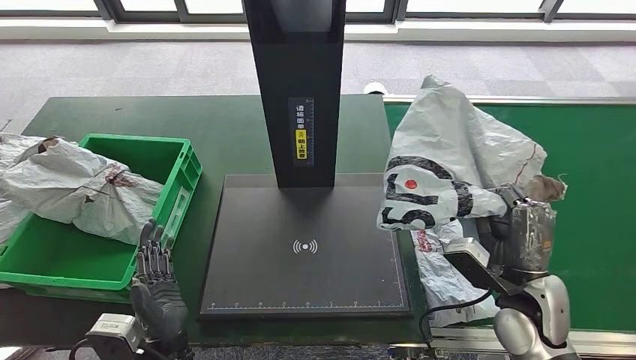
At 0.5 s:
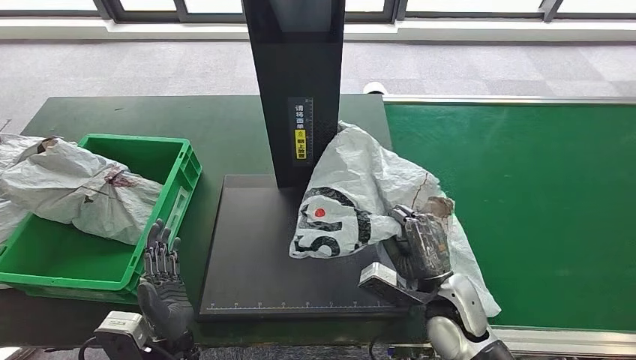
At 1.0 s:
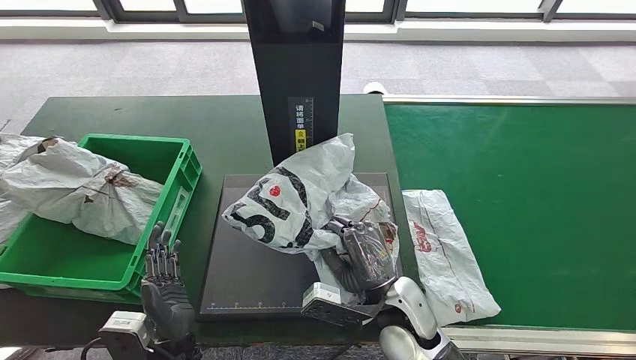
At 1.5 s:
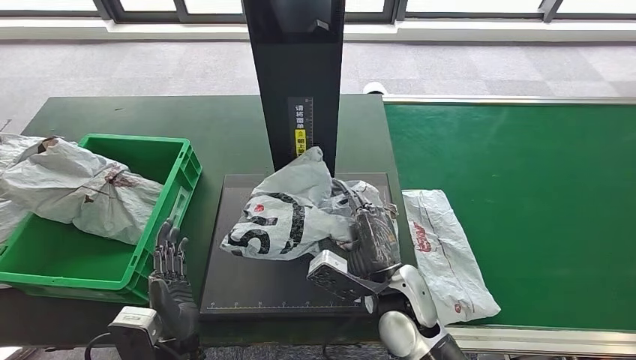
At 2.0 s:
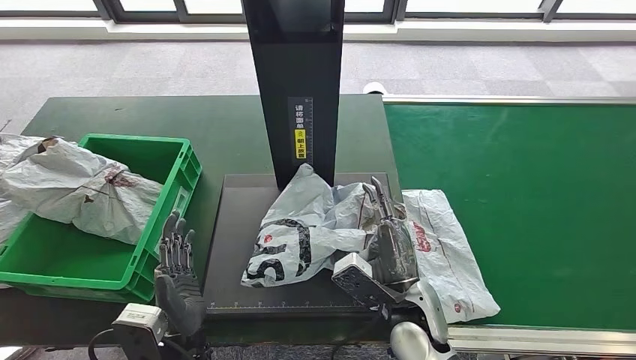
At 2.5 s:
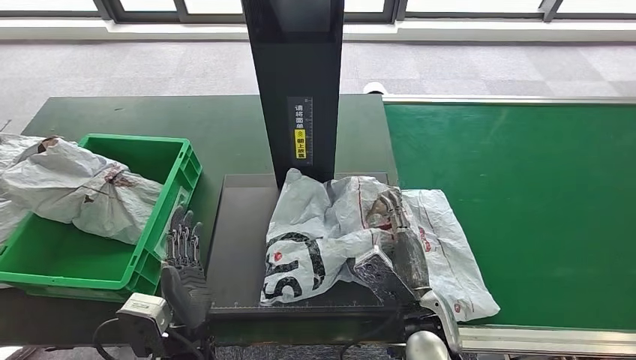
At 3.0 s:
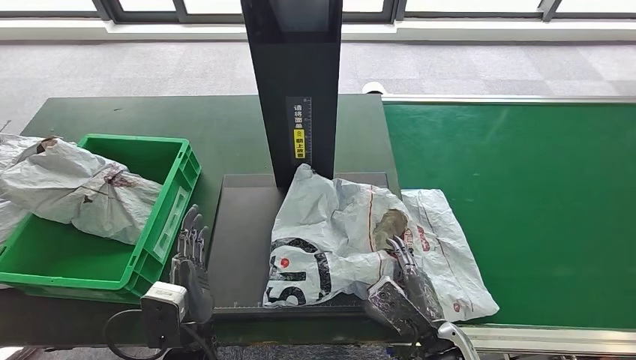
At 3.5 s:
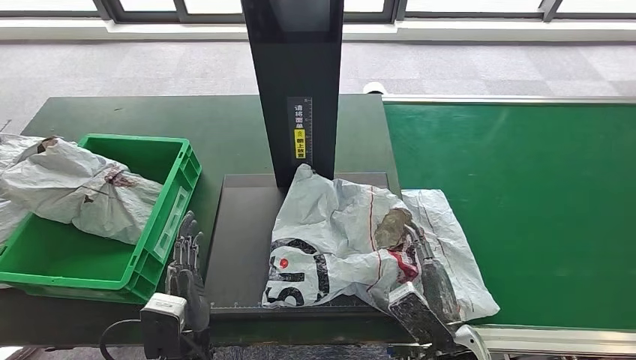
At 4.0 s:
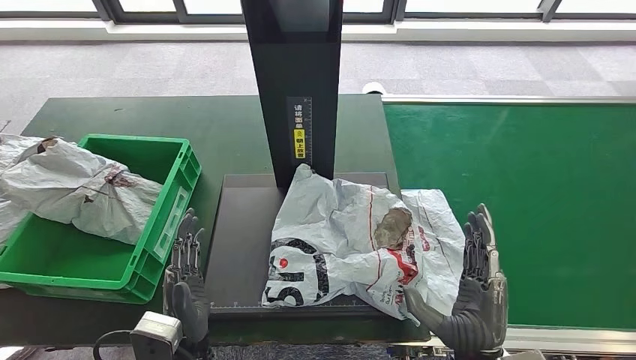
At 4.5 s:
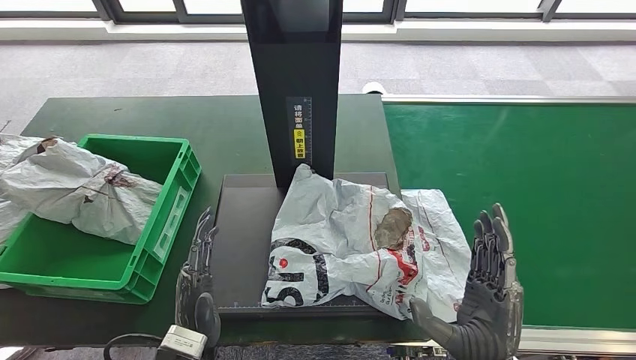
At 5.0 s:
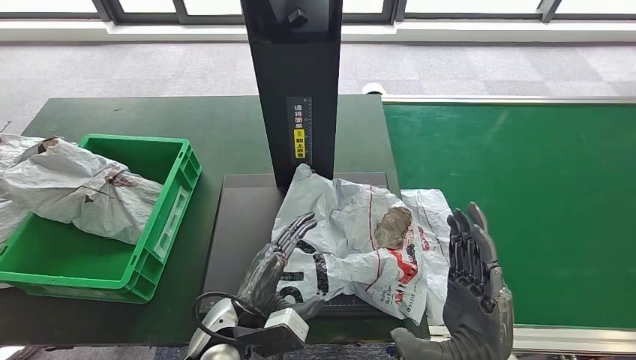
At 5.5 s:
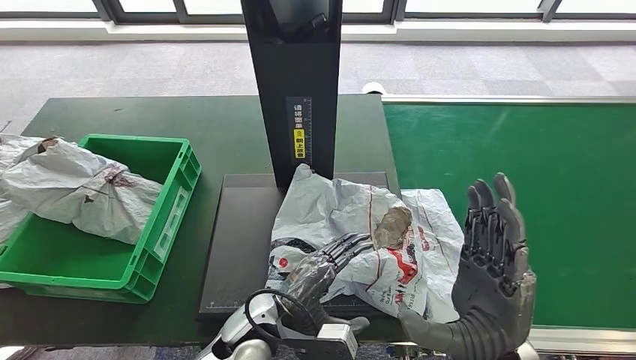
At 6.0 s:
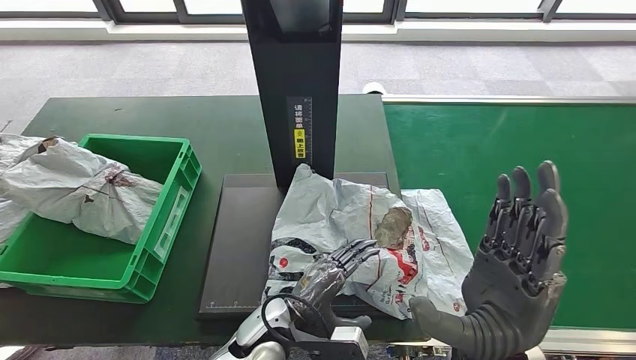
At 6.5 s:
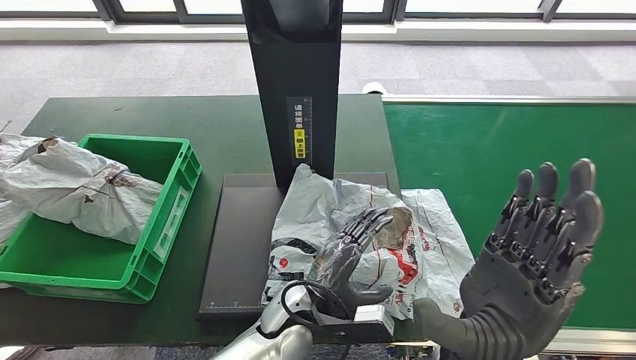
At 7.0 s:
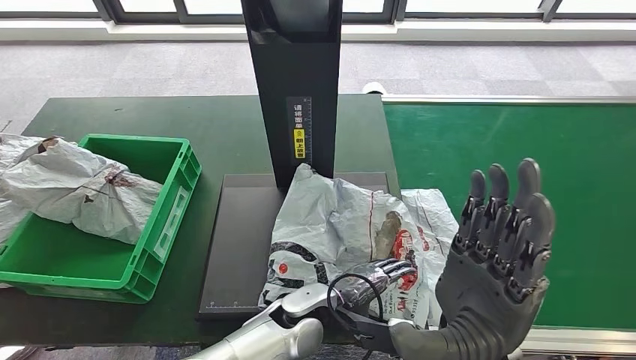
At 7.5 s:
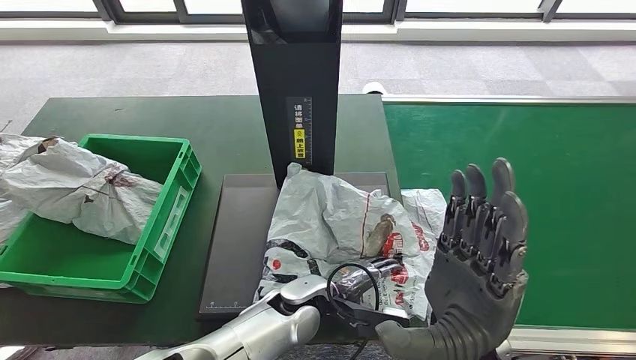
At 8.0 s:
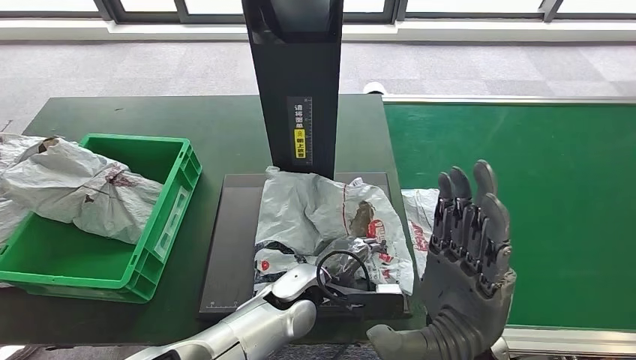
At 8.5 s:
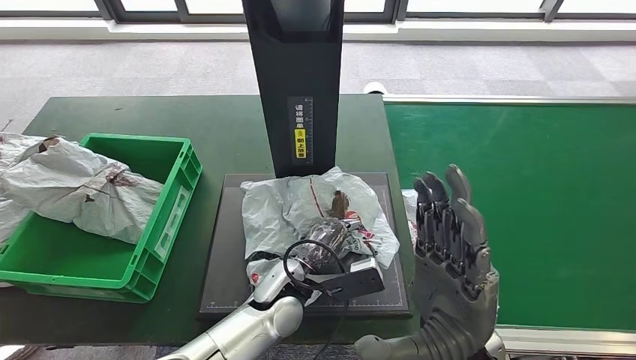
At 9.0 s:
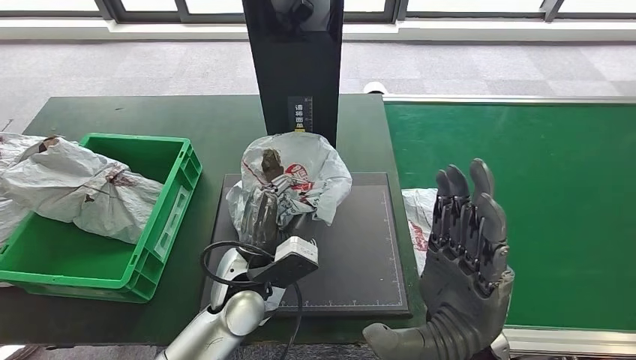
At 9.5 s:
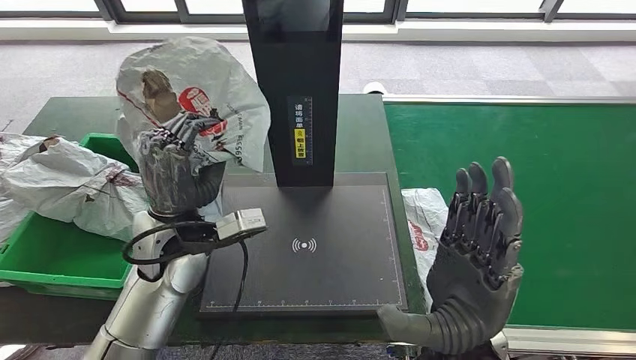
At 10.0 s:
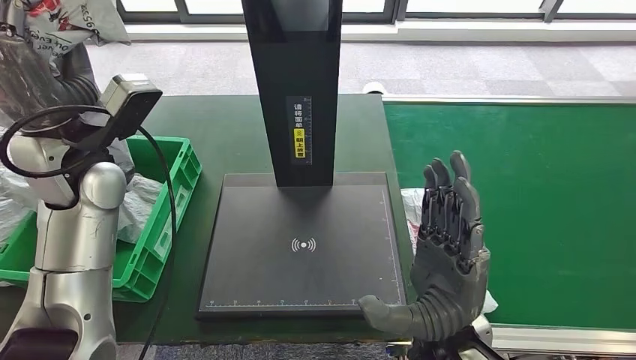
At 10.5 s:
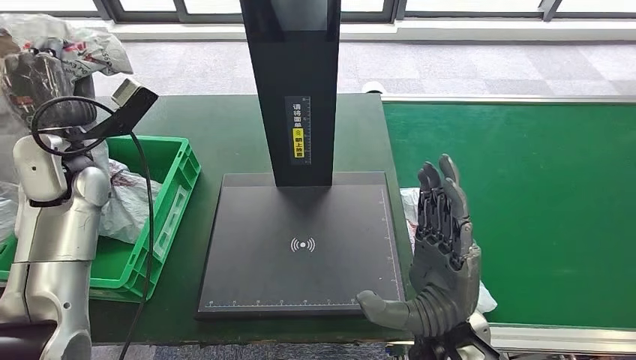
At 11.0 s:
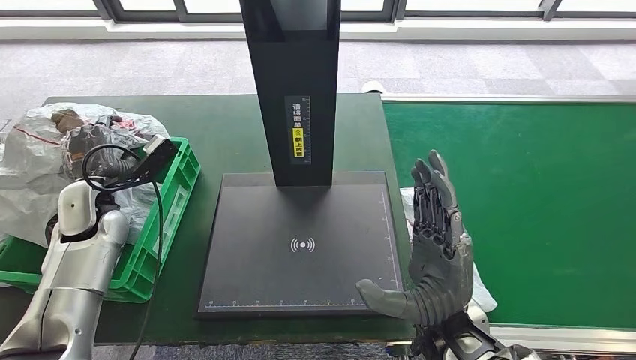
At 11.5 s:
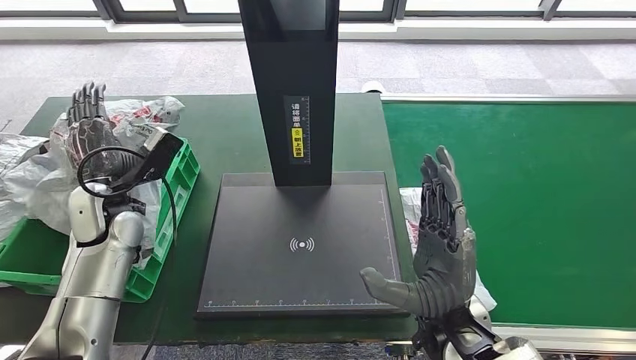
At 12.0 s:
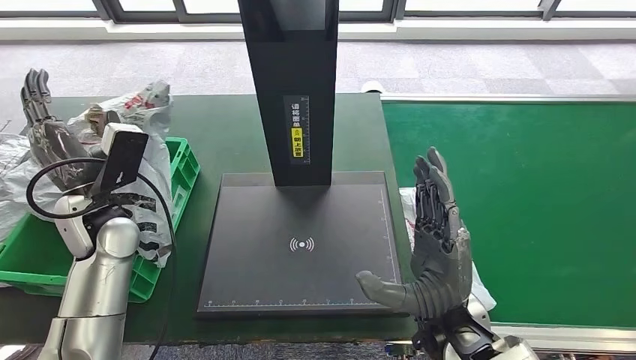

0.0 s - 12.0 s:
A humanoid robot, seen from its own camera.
Step, 1.0 s - 4.5 s: Place the parcel onto the inbound machine.
Step, 5.0 s - 10.5 s: Pick up the parcel from the inbound machine.
2.0 s - 4.0 s: The right hand goes approximately 10 cm backward and to the right.
4.0 s - 6.0 s: The right hand heads upward, covering roughly 10 cm, while the left hand goes roughly 15 cm to the right and forward.
6.0 s - 8.0 s: The left hand heads to the right and forward, covering some 10 cm.

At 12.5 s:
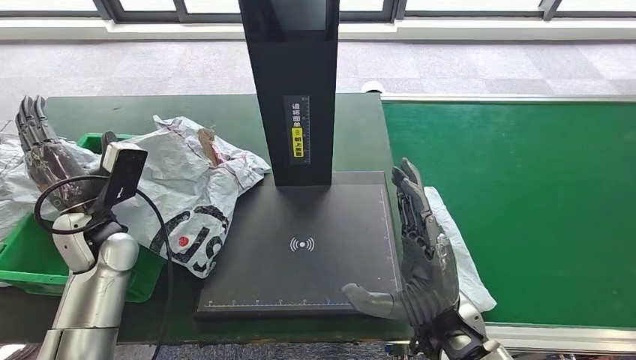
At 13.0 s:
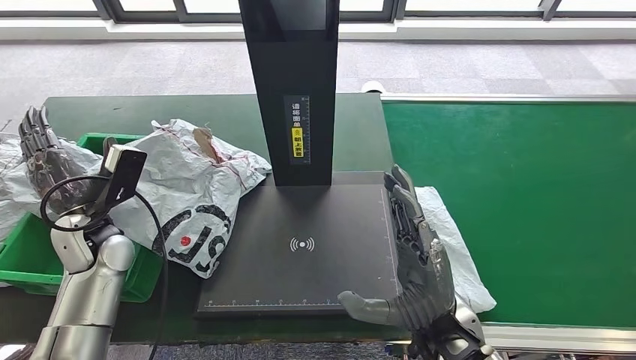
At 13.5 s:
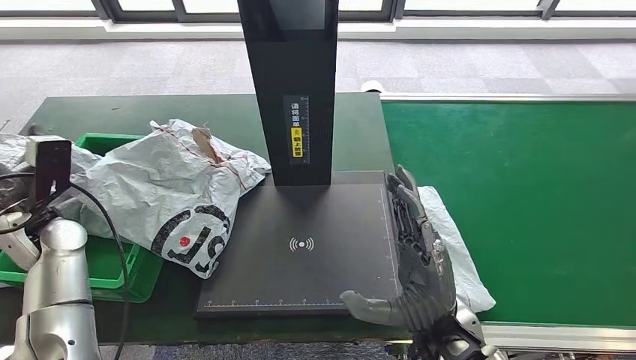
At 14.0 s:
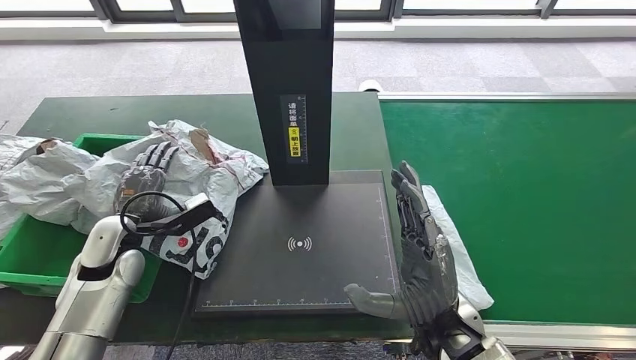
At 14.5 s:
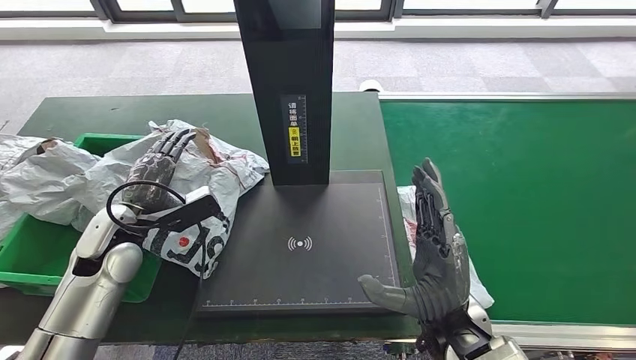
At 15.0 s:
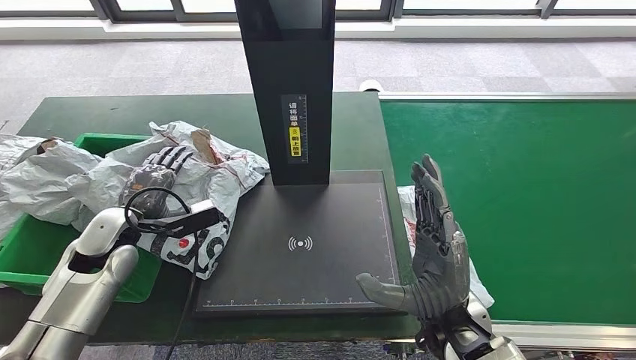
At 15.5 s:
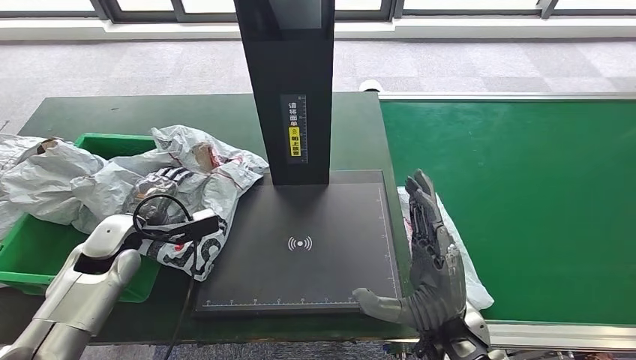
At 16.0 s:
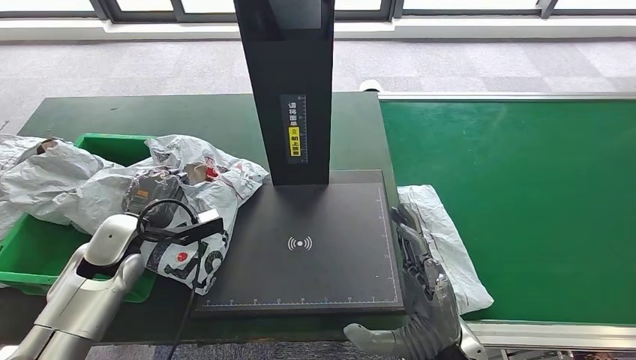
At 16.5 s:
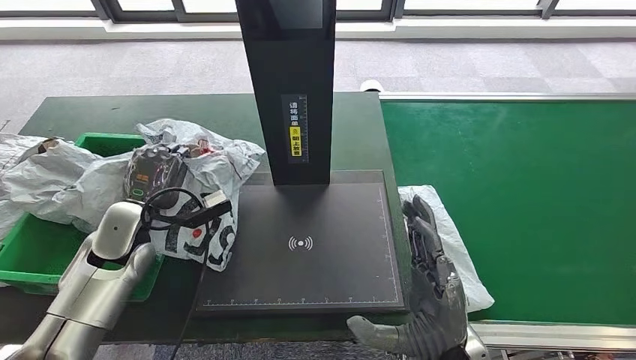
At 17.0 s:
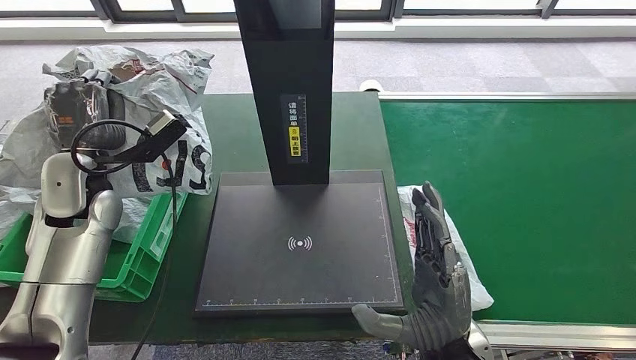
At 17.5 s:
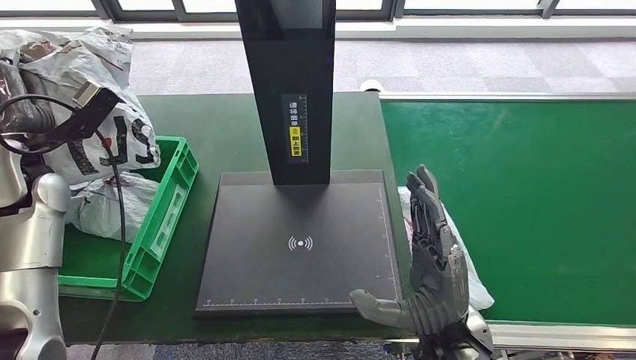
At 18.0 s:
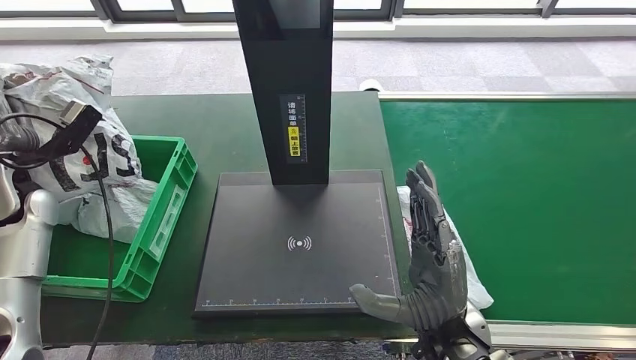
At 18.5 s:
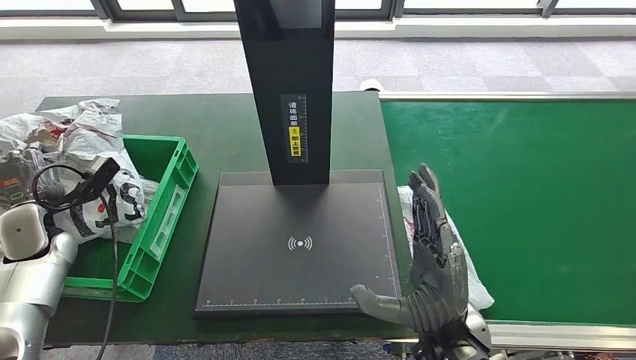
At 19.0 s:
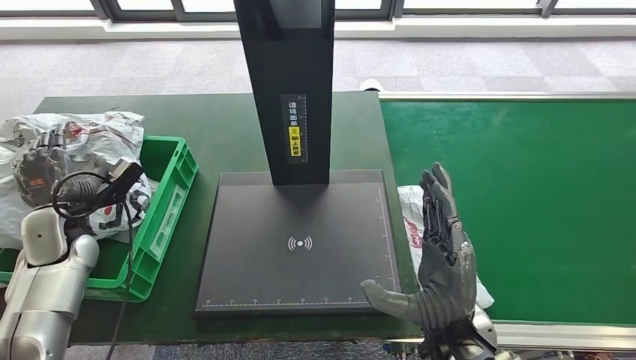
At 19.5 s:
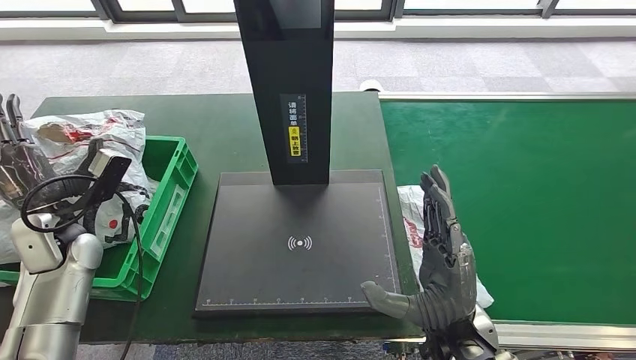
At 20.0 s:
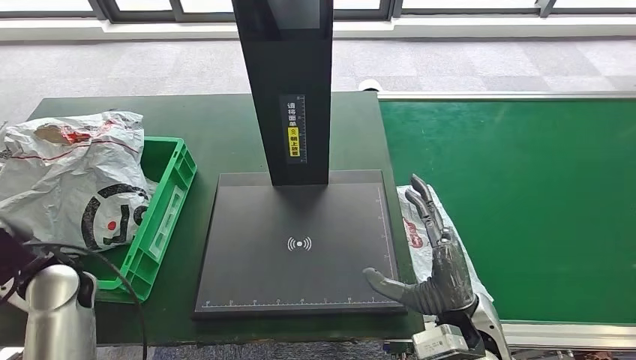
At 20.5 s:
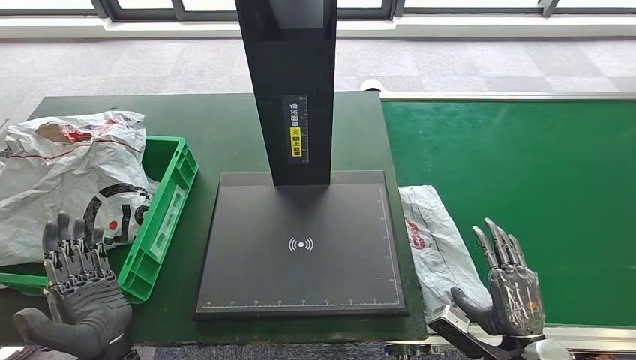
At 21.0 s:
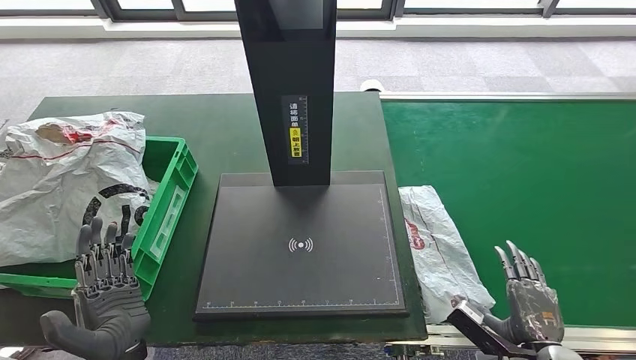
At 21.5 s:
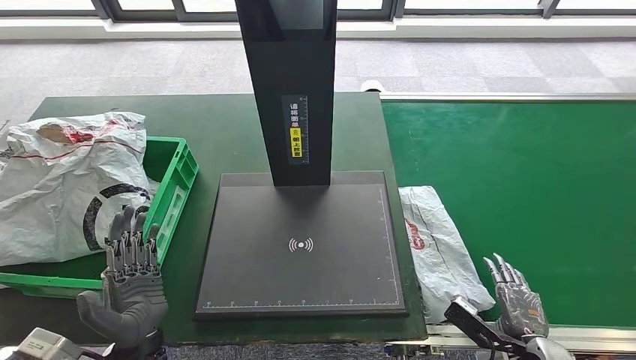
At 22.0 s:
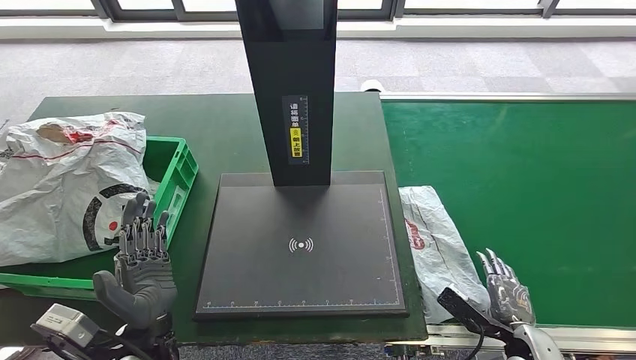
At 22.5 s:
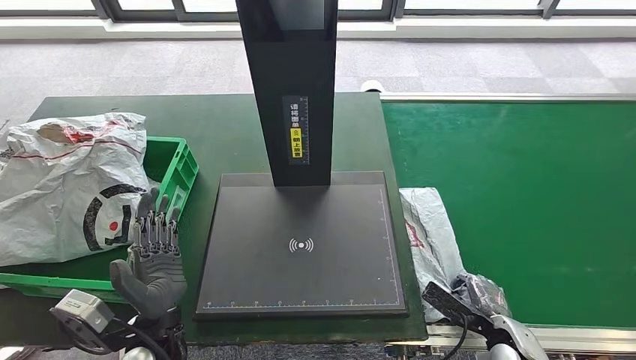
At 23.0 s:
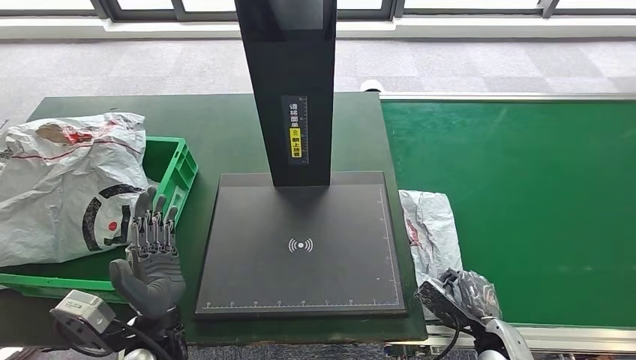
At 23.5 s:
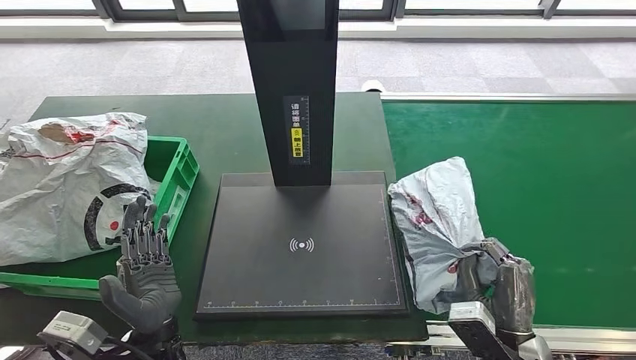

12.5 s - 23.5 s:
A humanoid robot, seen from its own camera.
Step, 12.5 s - 15.0 s: Place the parcel into the delivery box.
18.0 s - 20.0 s: The left hand travels backward, downward and to the right by roughly 15 cm, while the right hand shifts by approximately 5 cm.
20.0 s - 21.5 s: The left hand heads to the right and backward, covering roughly 20 cm; the right hand goes some 20 cm to the right and downward.
21.5 s - 23.5 s: The right hand shifts about 15 cm to the left and upward.
